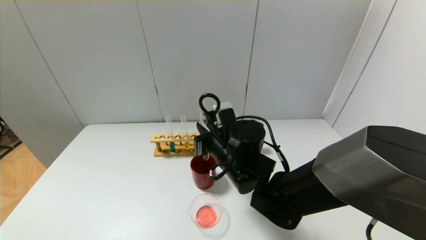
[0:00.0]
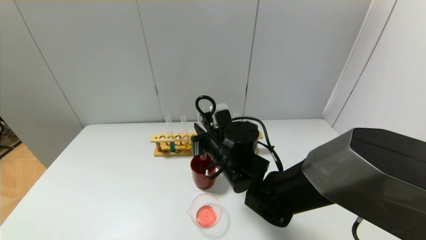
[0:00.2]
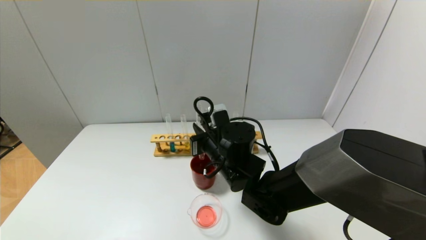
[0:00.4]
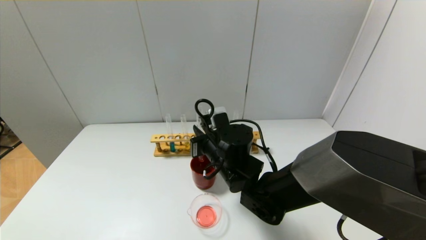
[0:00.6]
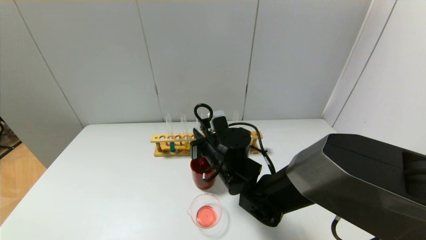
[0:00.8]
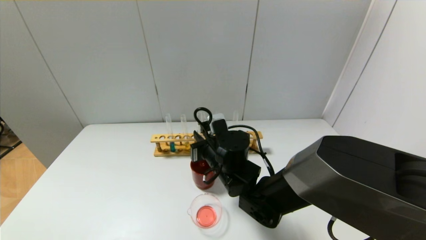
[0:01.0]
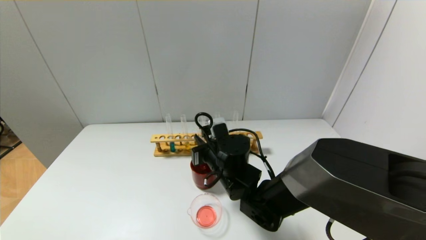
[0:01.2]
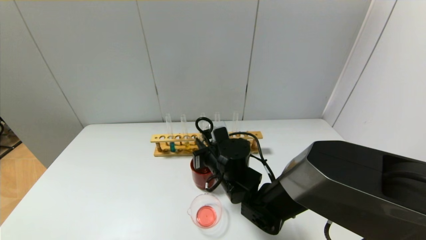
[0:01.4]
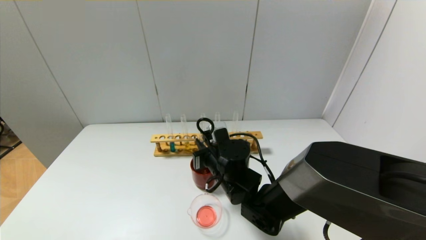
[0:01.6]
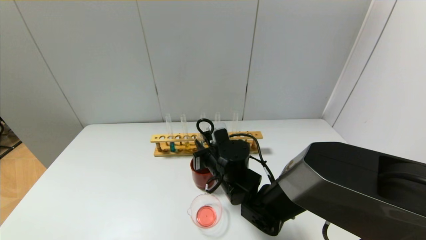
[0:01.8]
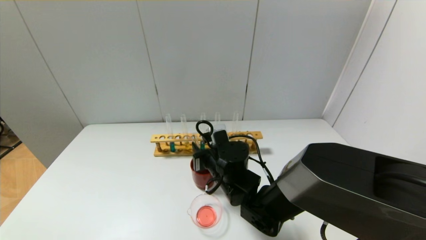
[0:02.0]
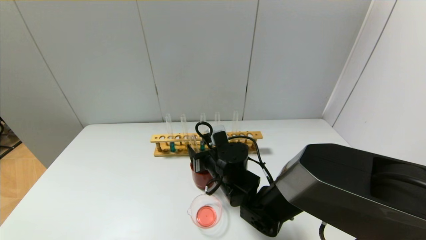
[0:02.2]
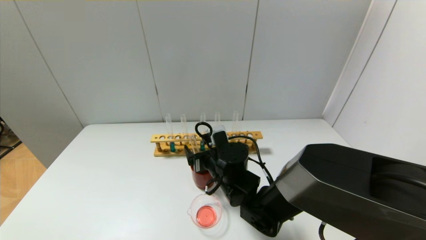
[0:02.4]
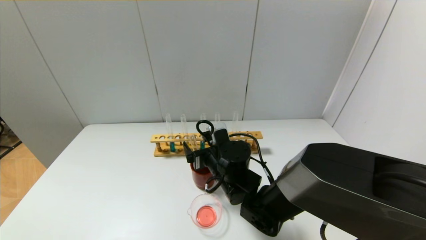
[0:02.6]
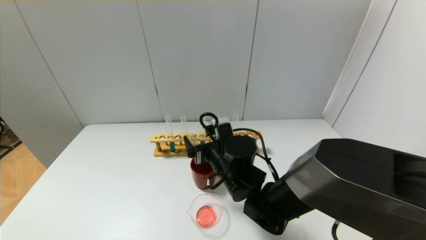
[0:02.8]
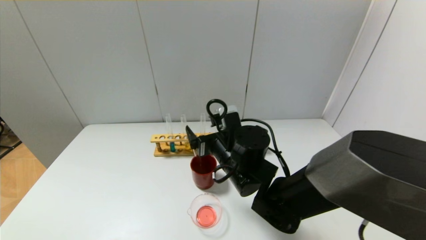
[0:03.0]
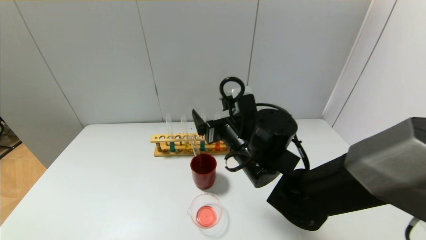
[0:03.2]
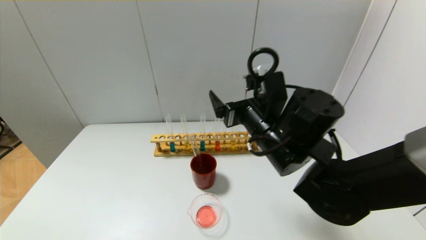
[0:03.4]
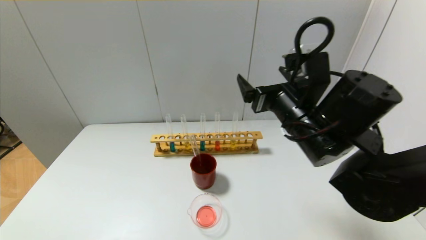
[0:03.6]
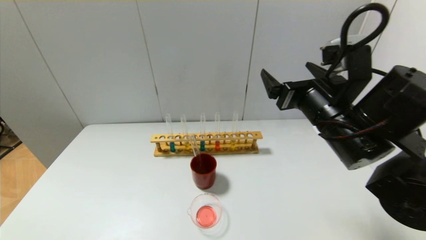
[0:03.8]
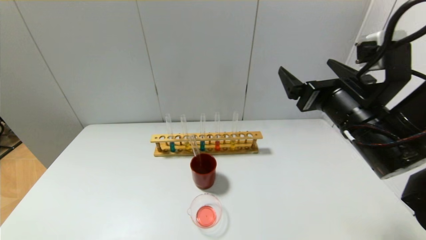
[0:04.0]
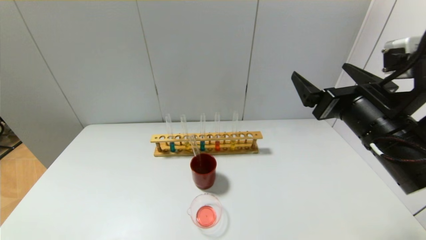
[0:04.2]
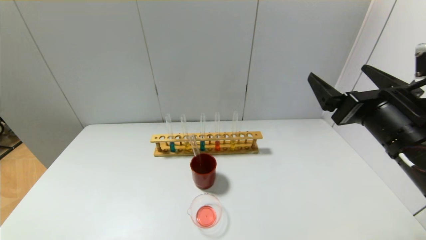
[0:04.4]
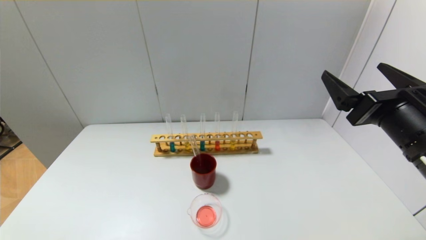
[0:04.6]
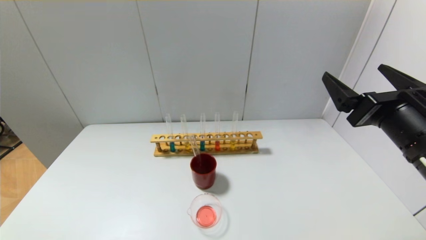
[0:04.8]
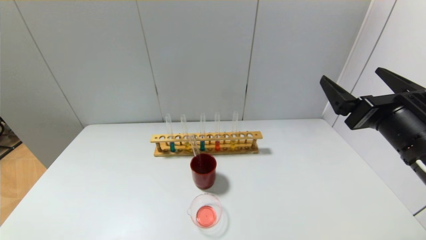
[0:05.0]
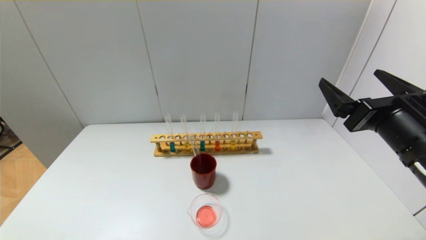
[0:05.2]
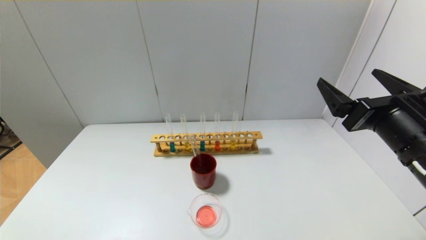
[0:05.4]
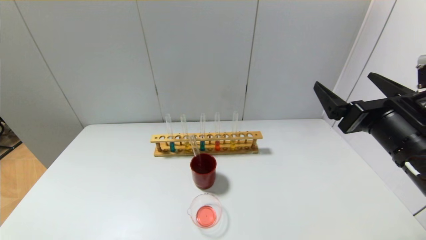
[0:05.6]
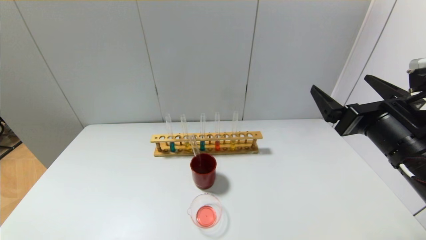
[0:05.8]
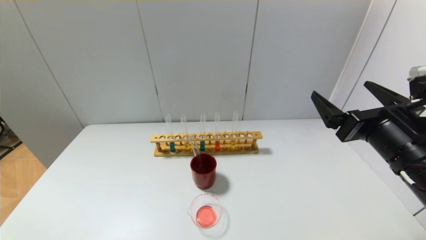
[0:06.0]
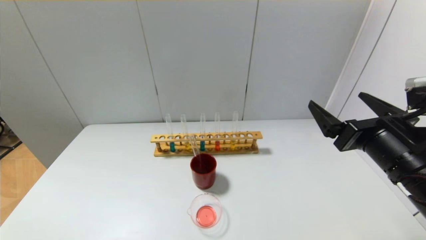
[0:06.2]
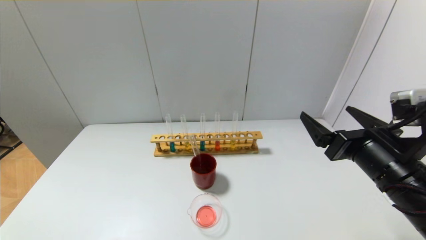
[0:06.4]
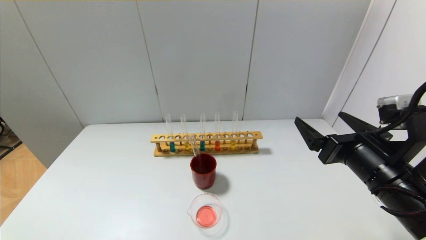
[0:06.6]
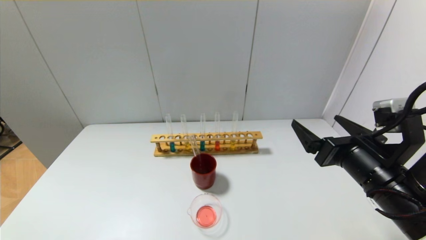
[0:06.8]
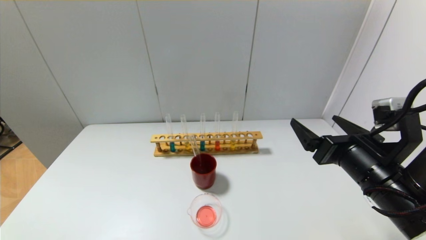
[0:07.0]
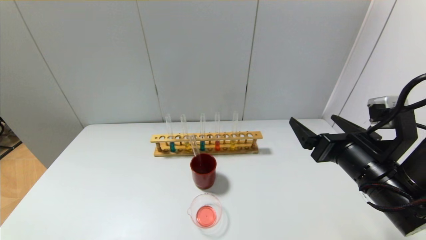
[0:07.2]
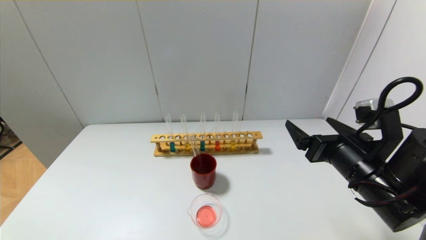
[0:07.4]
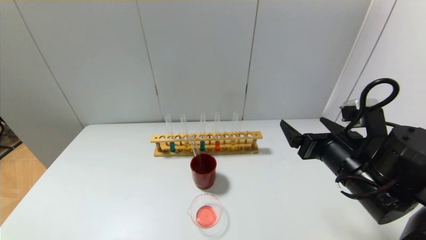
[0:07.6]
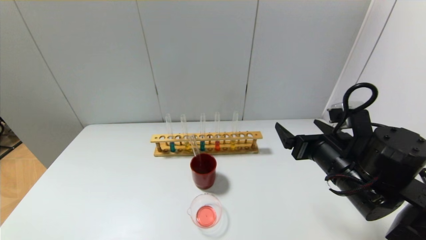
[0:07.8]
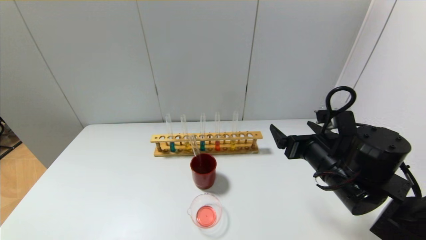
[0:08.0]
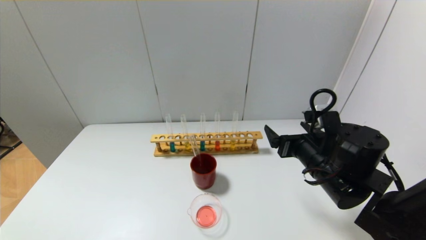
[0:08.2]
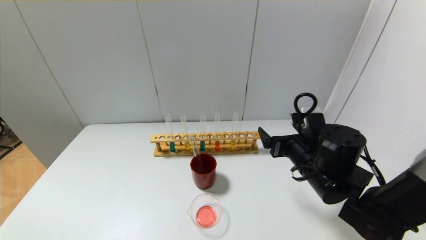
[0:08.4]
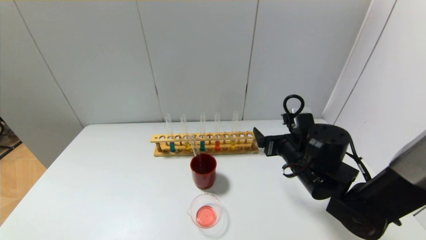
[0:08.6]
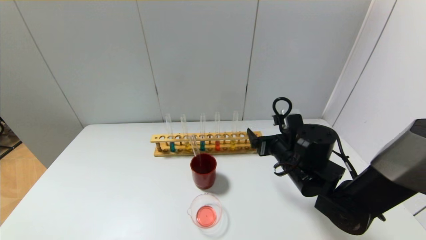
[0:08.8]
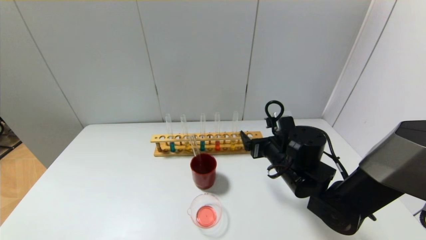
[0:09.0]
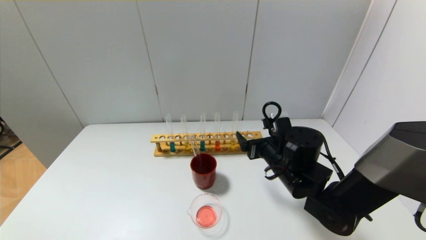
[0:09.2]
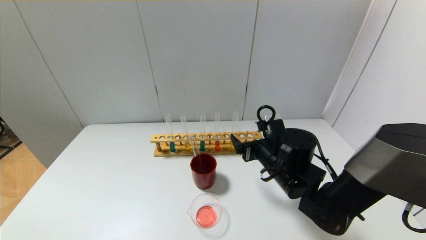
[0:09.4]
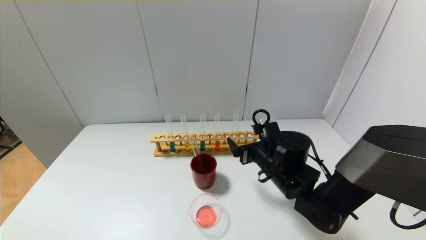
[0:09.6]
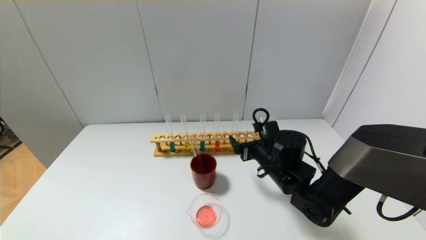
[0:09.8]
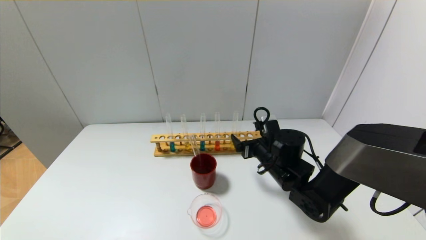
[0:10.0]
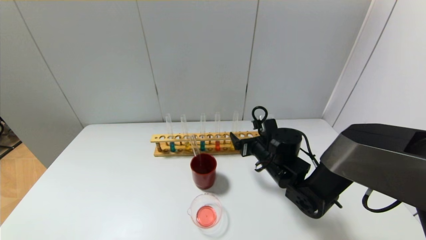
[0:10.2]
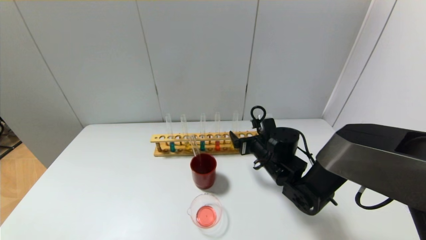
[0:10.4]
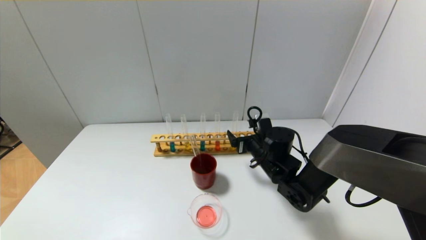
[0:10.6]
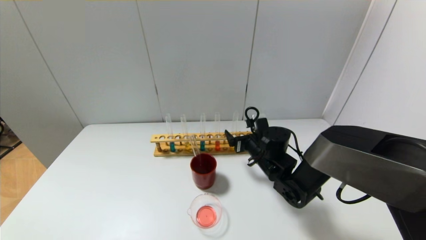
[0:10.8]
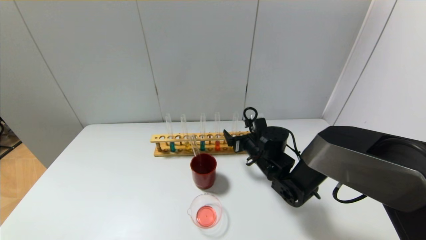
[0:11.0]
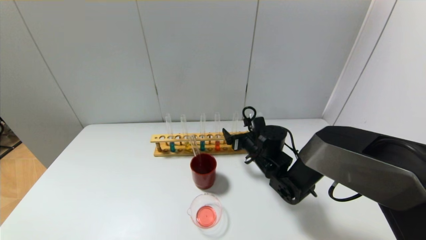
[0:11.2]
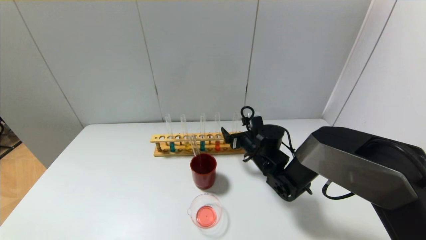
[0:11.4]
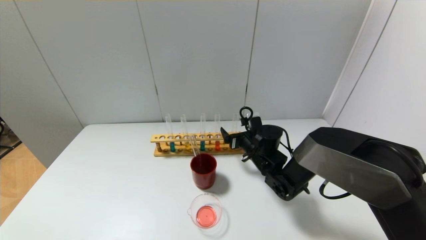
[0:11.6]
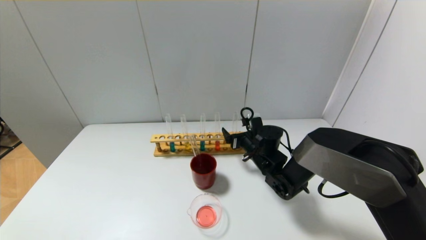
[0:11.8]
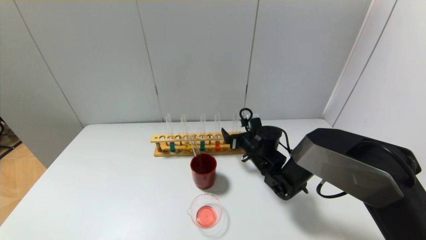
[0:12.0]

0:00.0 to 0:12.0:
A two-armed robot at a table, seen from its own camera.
Step, 0:00.0 to 0:02.2: Place the test tube into the brown cup with the right gripper.
0:00.0 to 0:01.6: The right gripper travels downward by roughly 5 cm.
0:01.6 to 0:03.0: The right gripper changes place by roughly 5 cm, and opens up.
0:03.0 to 0:04.4: The right gripper goes some 25 cm to the right, upward and backward.
0:04.4 to 0:06.0: The grippers stay close to where they were, moving slightly.
0:06.0 to 0:07.6: The right gripper travels downward by about 5 cm.
0:07.6 to 0:09.0: The right gripper moves forward, downward and to the left, roughly 10 cm.
0:09.0 to 0:10.4: The right gripper moves forward, roughly 5 cm.
0:10.4 to 0:12.0: The right gripper ends up some 5 cm from where it was.

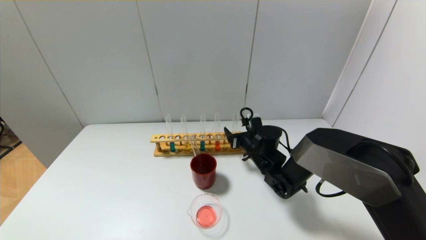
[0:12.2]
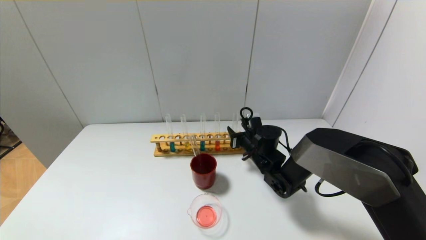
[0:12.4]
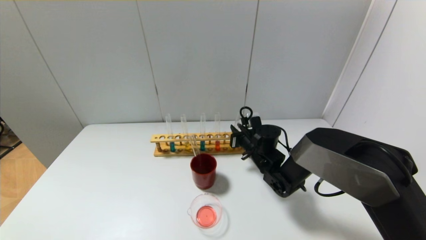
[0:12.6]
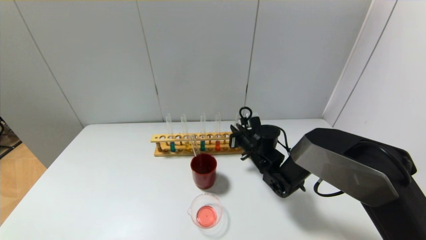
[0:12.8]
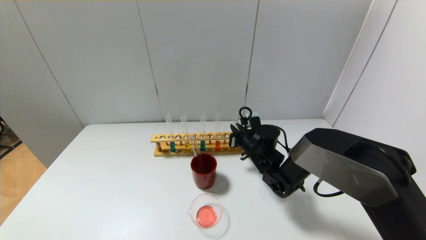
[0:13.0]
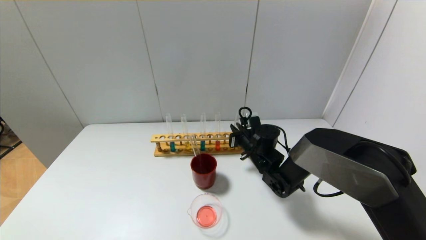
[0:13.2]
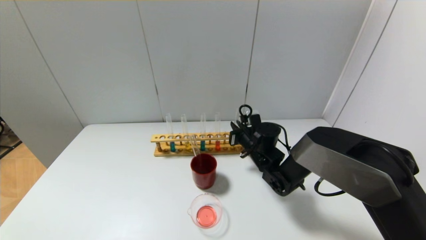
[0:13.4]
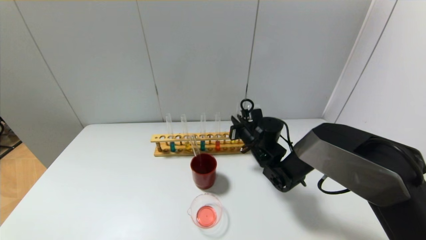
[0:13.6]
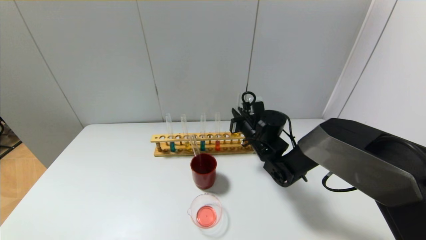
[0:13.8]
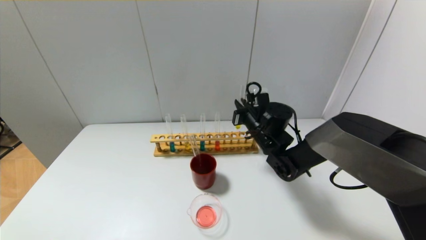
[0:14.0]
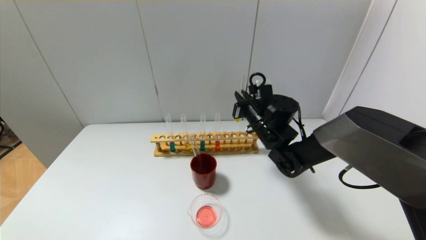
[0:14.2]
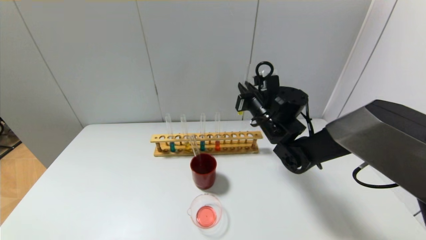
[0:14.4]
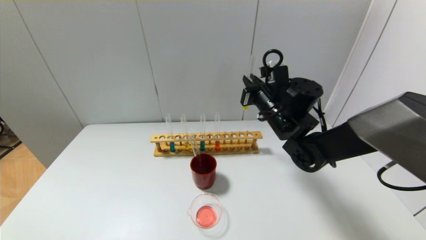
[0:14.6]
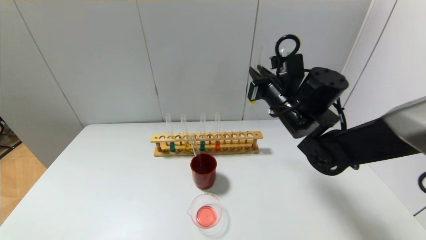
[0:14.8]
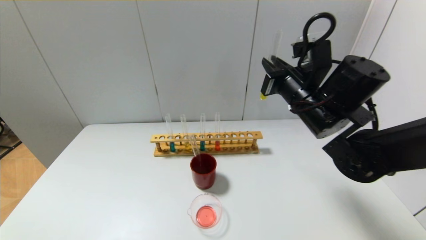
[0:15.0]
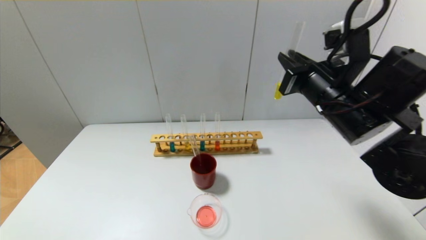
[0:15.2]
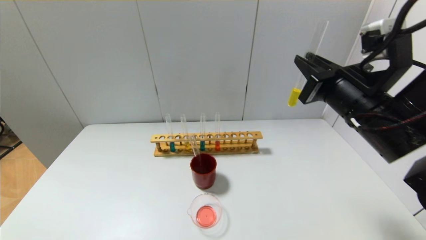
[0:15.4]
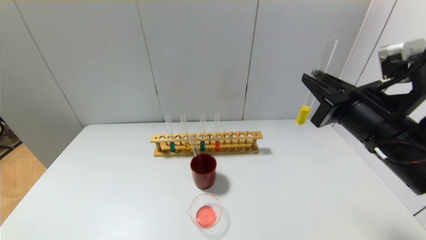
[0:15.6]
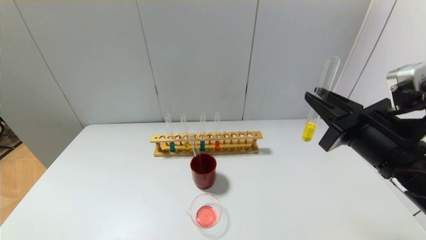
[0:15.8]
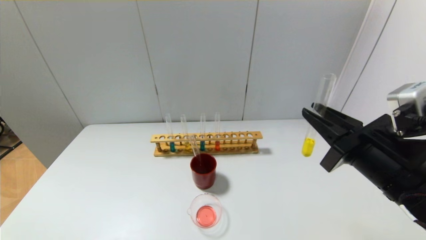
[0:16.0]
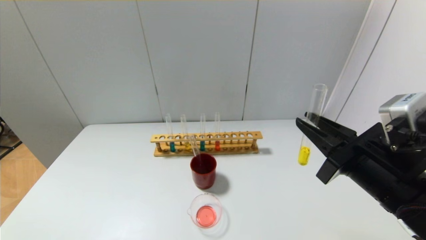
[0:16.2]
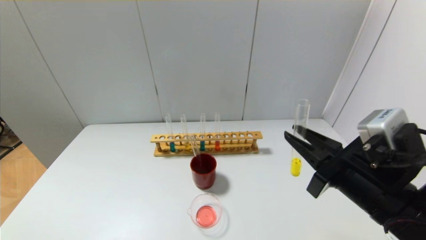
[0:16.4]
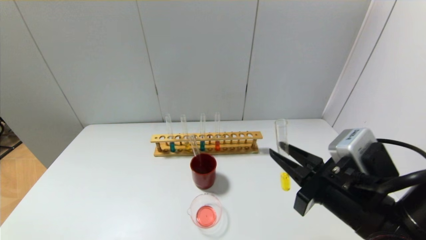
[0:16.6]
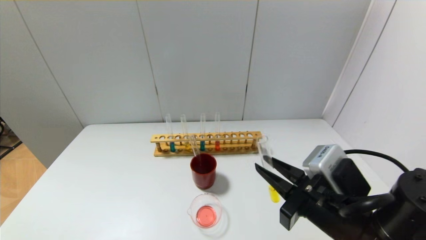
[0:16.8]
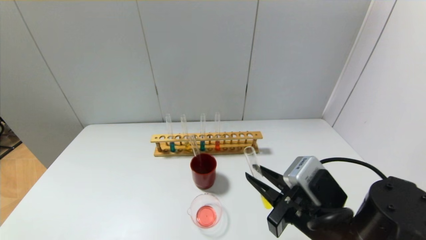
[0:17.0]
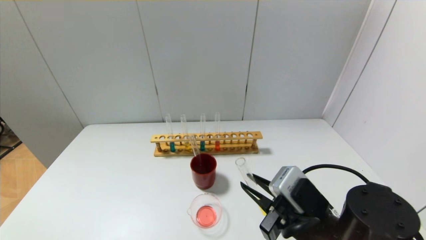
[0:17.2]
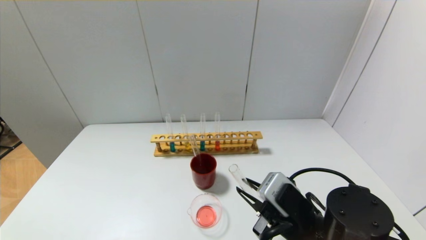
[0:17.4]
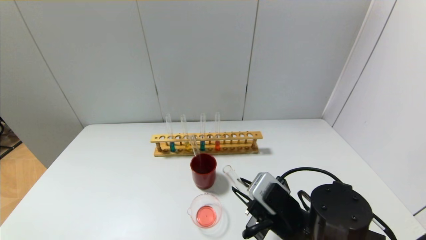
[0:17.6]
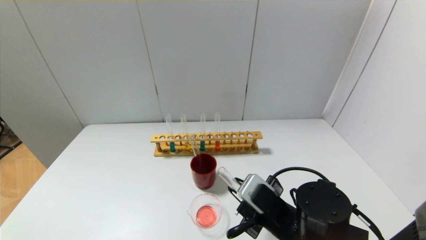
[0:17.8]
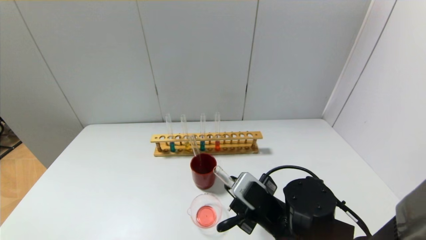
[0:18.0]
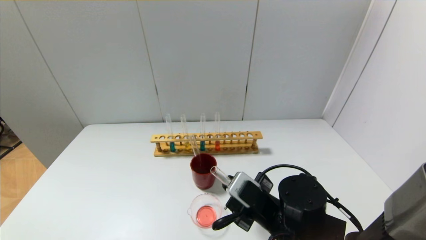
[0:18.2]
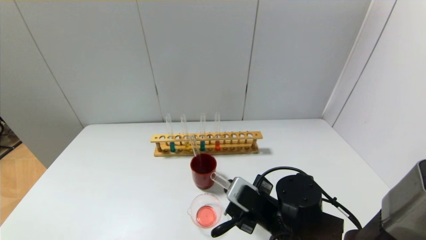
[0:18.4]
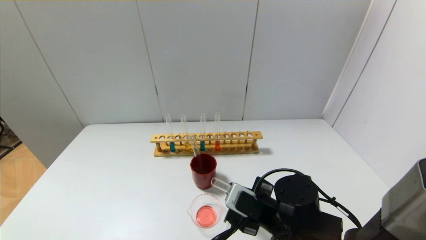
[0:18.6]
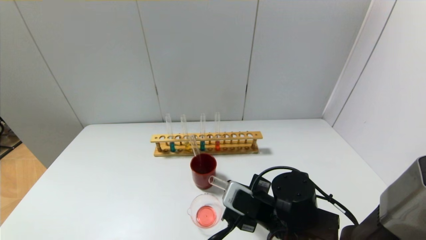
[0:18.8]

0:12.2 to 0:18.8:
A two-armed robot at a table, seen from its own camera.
0:12.2 to 0:13.8: The right gripper goes roughly 5 cm upward, and closes.
0:13.8 to 0:15.4: The right gripper moves backward, upward and to the right, about 25 cm.
0:15.4 to 0:17.2: The right gripper travels downward, backward and to the left by approximately 15 cm.
0:17.2 to 0:18.8: The right gripper moves approximately 10 cm.
